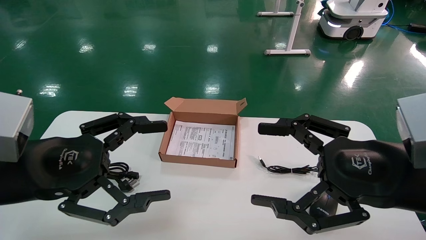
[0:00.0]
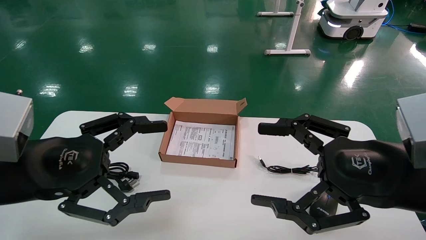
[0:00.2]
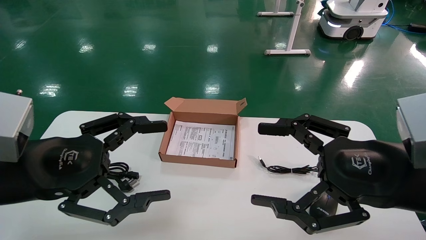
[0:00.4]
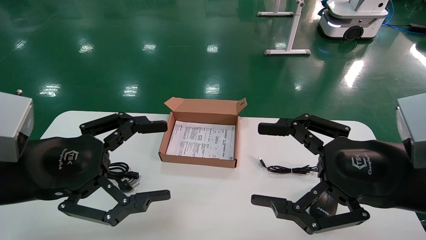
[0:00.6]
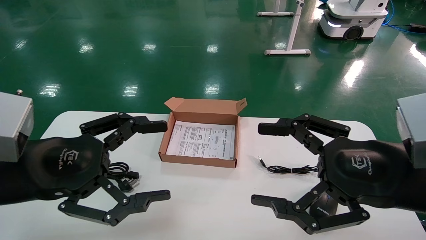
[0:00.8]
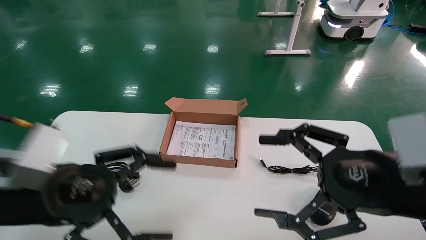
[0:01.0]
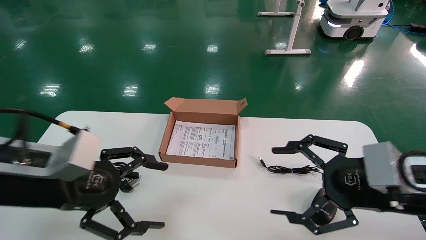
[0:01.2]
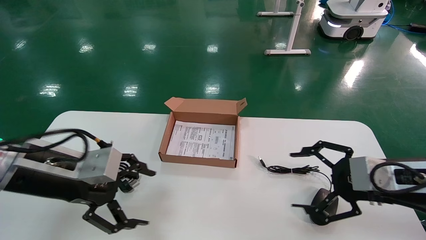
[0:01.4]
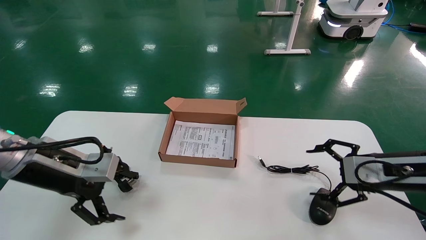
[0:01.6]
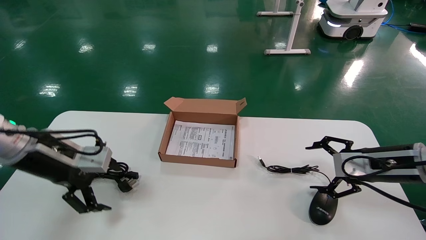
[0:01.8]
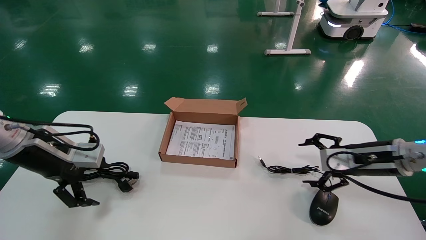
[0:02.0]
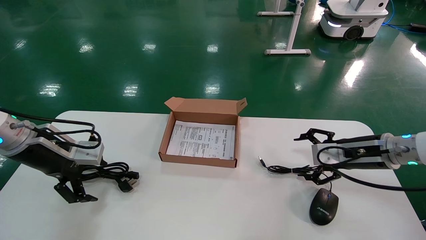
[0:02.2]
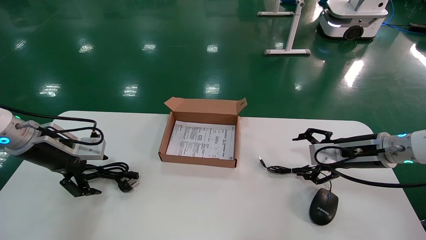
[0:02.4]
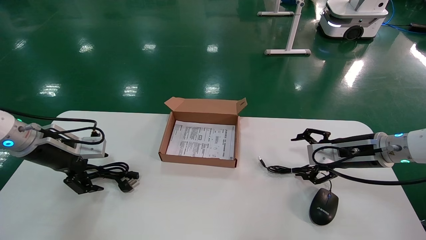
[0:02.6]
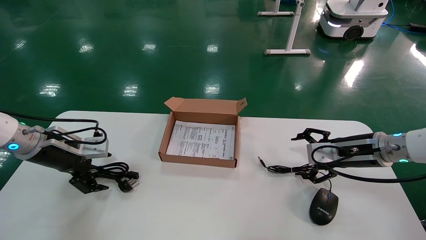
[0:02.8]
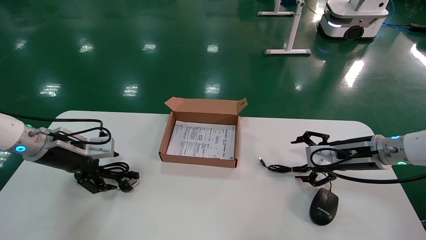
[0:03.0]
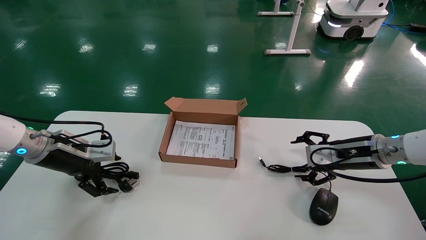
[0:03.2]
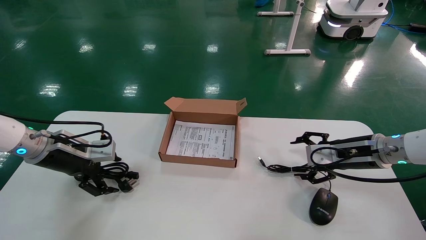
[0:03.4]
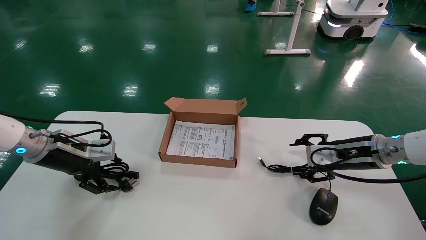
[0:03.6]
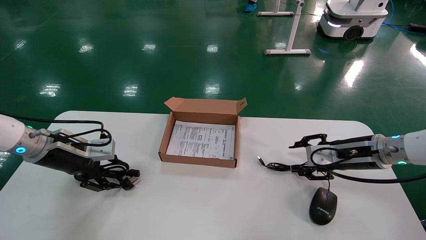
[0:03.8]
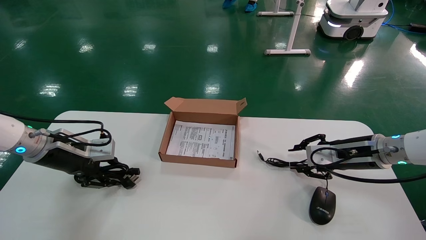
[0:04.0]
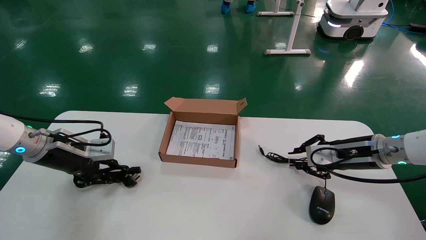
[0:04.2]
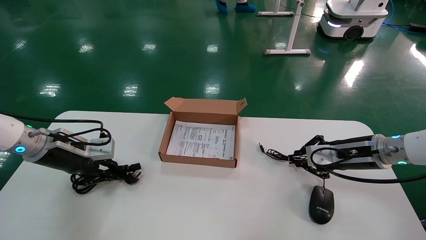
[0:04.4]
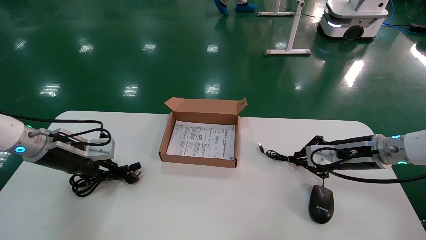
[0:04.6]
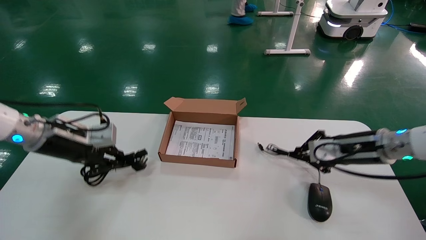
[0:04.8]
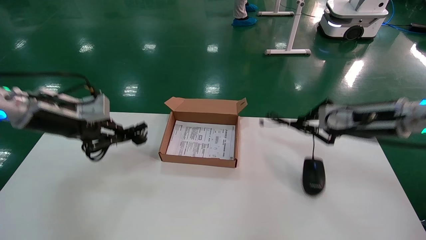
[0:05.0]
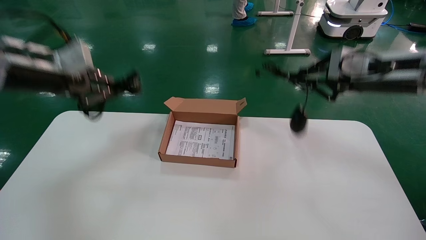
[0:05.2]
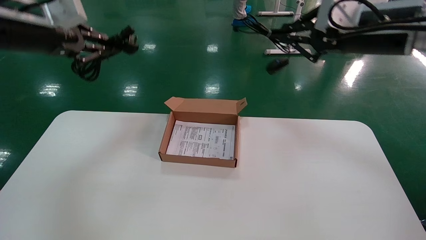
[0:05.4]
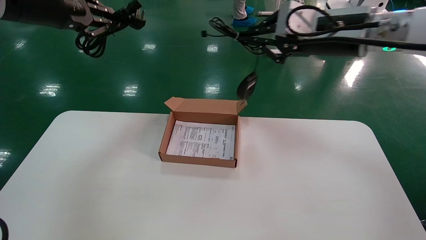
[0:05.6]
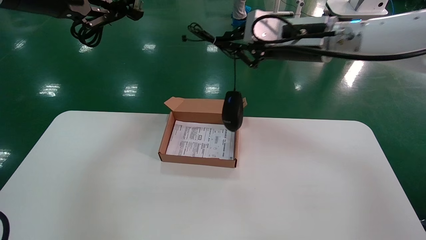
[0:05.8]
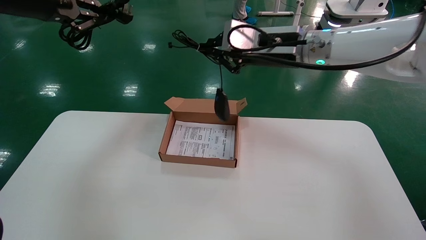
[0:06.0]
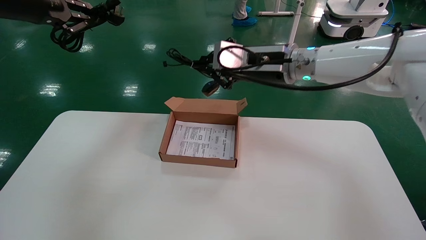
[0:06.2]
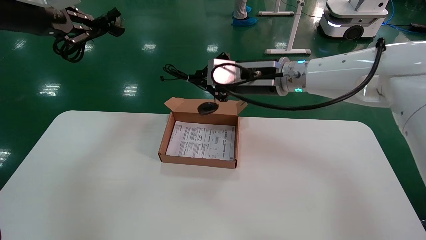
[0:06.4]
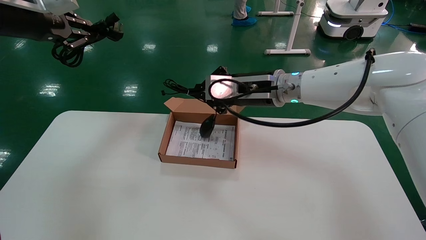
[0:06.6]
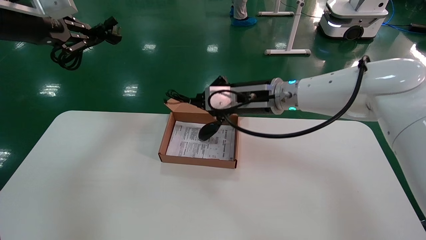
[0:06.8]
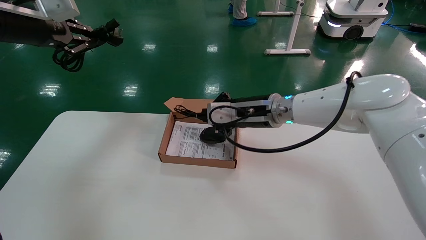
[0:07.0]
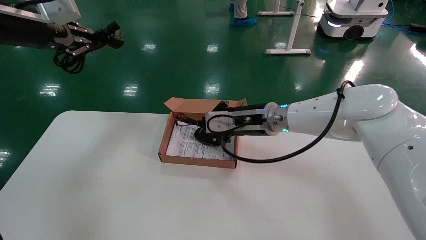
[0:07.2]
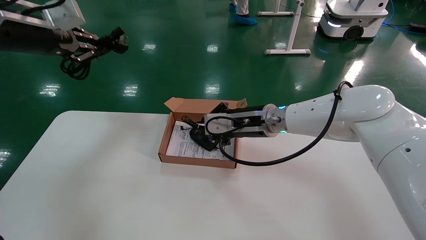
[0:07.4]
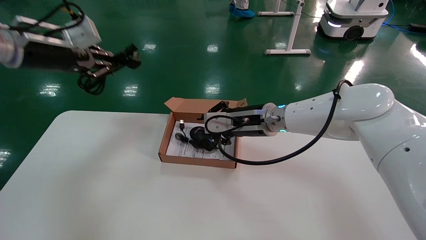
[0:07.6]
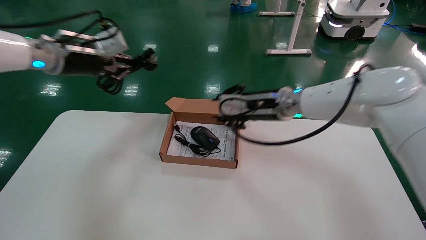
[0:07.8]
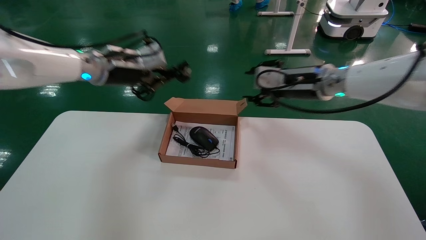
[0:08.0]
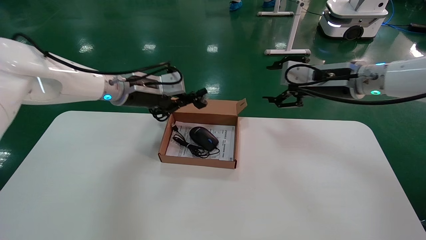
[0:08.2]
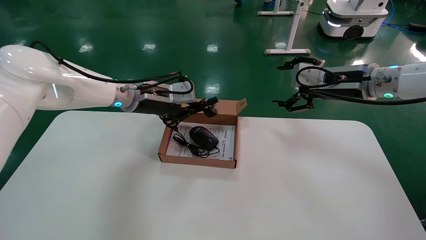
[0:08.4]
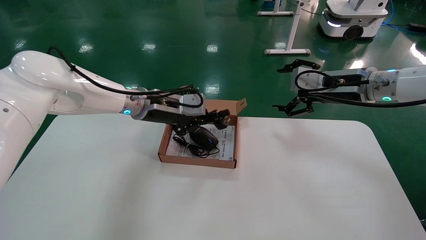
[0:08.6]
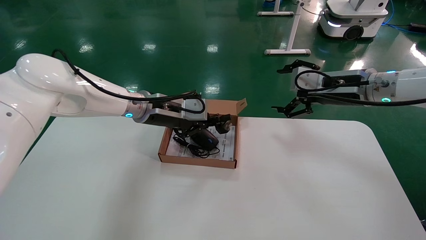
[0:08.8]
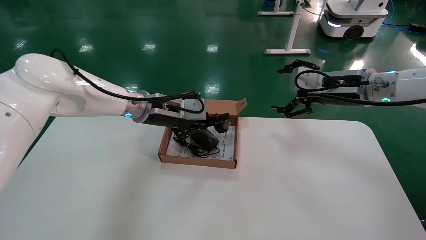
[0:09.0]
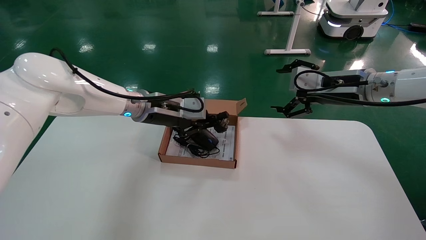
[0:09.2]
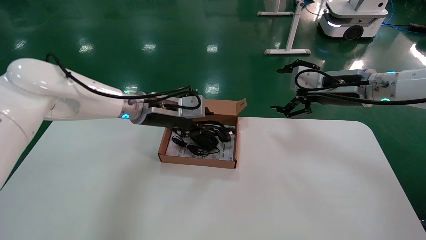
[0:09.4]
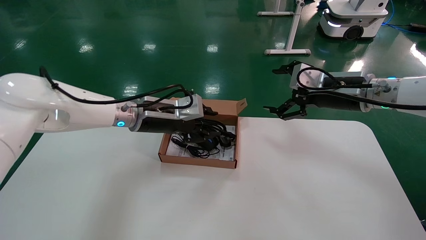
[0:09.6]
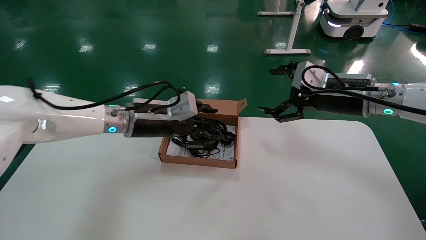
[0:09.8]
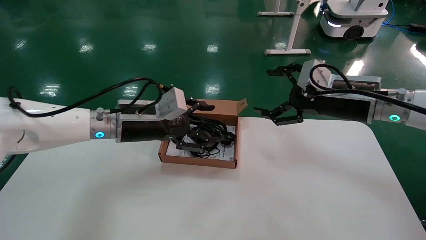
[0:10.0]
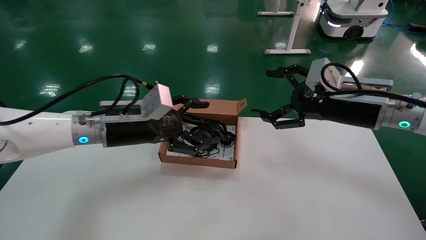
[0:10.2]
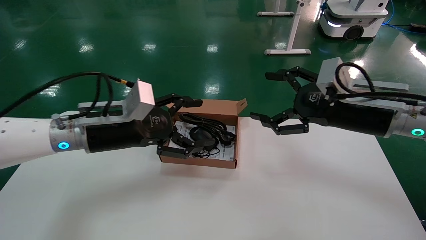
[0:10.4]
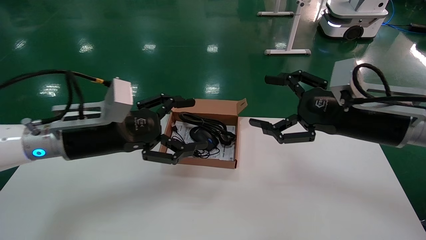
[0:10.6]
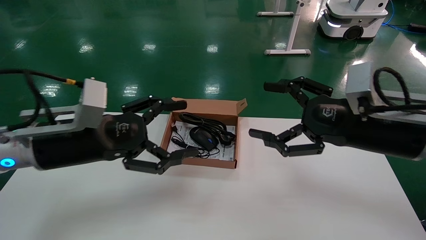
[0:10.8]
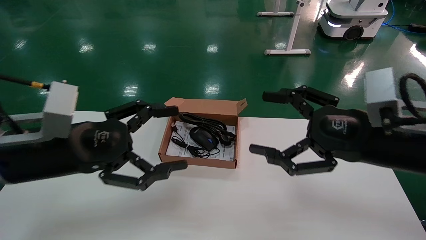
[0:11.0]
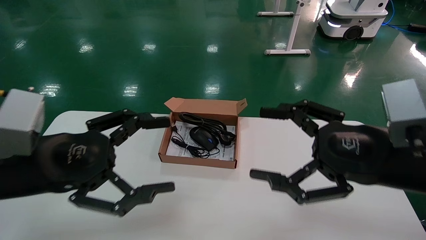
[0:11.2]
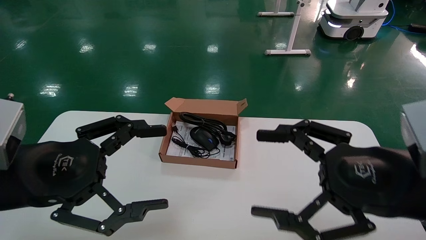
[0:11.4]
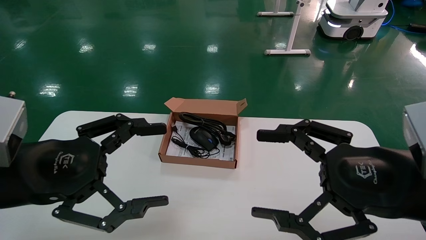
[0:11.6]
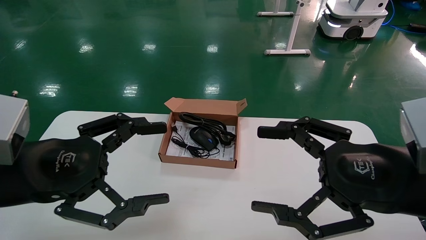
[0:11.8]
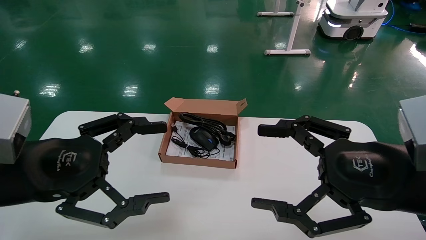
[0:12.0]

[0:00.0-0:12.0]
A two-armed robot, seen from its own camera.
Step, 0:01.2 to 0:04.8: Grab and lift both the mouse and power cord from the accessory packaging area at the same time.
Step, 0:05.0 to 0:10.0: Place the mouse and power cord into the box.
0:00.0 to 0:01.6: The left gripper heads forward, covering about 10 cm. The right gripper travels forward, to the right and downward by roughly 15 cm.
0:01.6 to 0:03.0: The left gripper heads forward and to the left, covering approximately 10 cm. Meanwhile the right gripper heads forward, covering roughly 10 cm.
0:03.0 to 0:04.4: The left gripper closes its fingers, while the right gripper closes.
0:04.4 to 0:06.0: The left gripper shifts approximately 30 cm upward. The right gripper goes roughly 25 cm upward and to the left.
0:06.0 to 0:07.6: The right gripper goes some 15 cm downward; the left gripper heads downward, covering approximately 10 cm.
0:07.6 to 0:09.0: The right gripper is displaced to the right by roughly 15 cm, and opens. Meanwhile the left gripper goes roughly 25 cm to the right and downward.
0:09.0 to 0:10.4: The left gripper goes about 15 cm backward and to the left, and opens; the right gripper goes some 10 cm backward.
0:10.4 to 0:12.0: Both grippers travel together backward, about 15 cm.

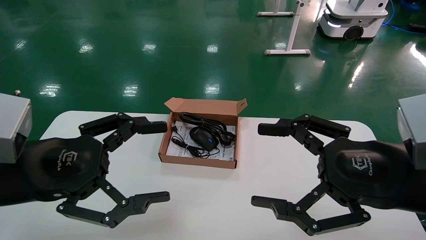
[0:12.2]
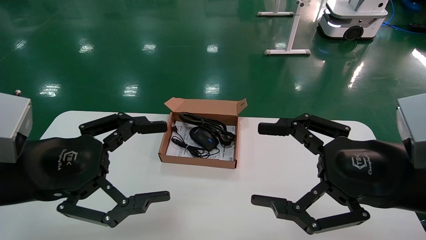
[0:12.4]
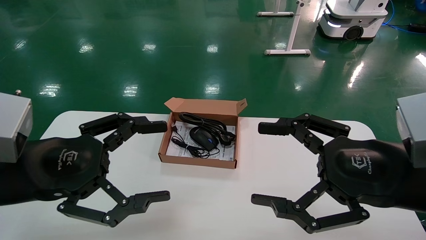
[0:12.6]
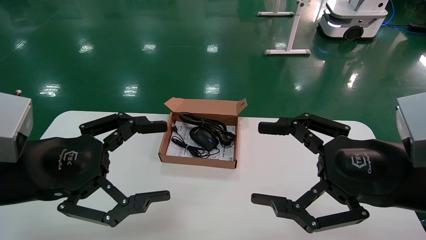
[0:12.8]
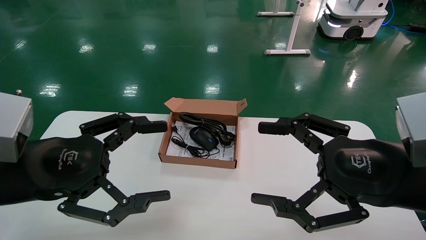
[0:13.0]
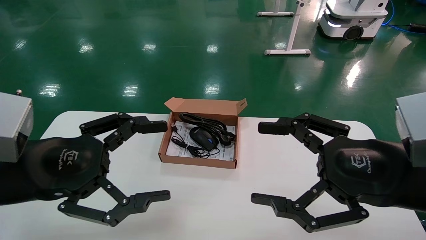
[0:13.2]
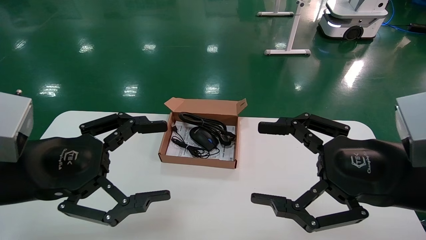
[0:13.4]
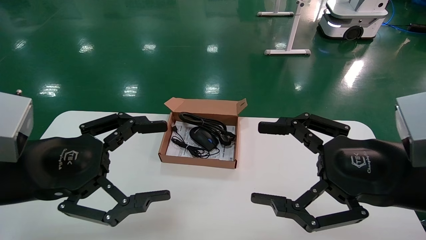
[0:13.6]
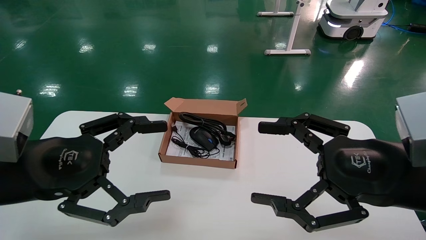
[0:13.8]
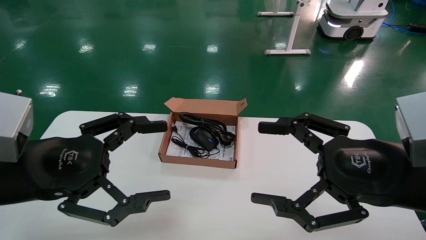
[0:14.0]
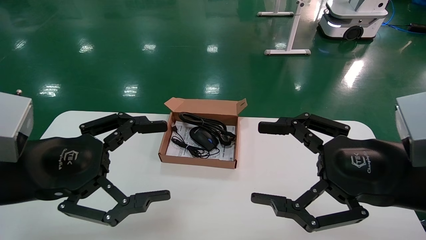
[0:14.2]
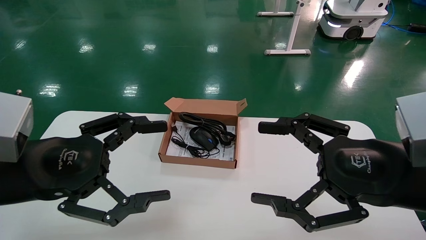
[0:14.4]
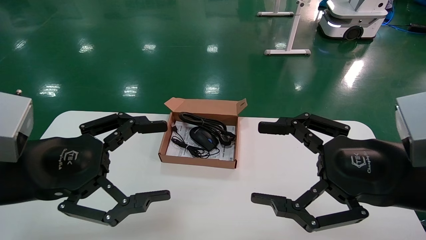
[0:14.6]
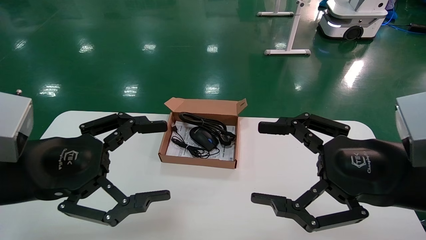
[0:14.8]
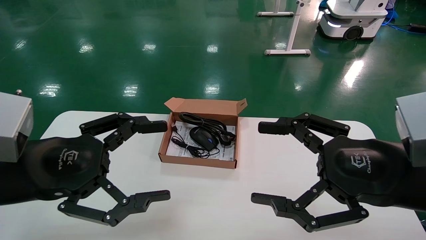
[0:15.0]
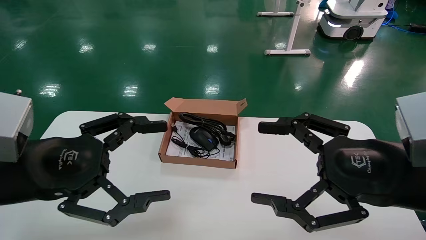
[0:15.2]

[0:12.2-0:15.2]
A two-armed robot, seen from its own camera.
0:12.2 to 0:15.2: Both grippers stay about where they are.
